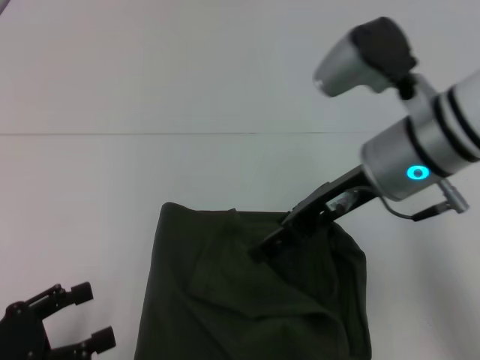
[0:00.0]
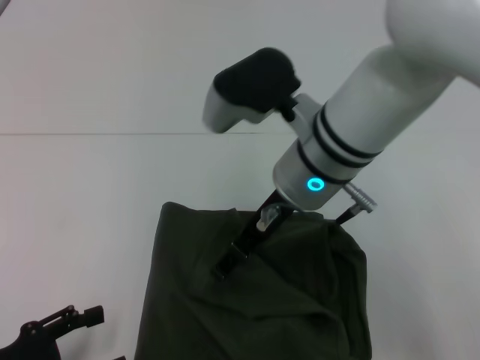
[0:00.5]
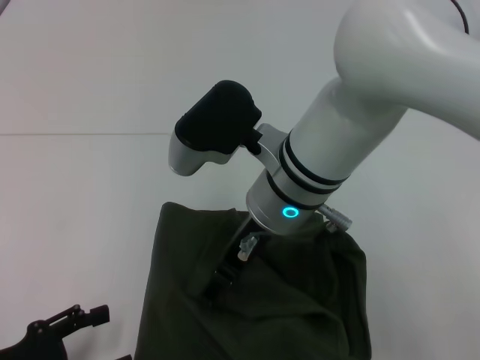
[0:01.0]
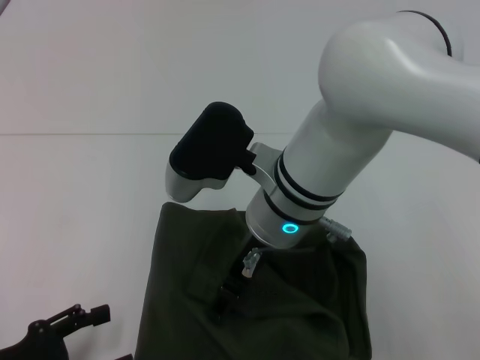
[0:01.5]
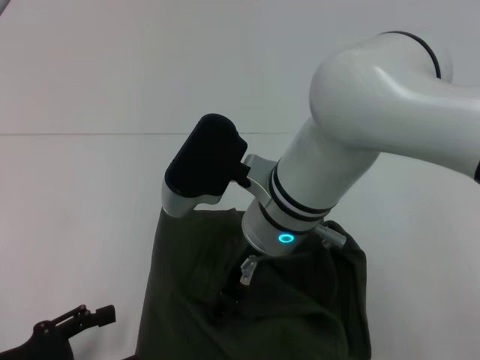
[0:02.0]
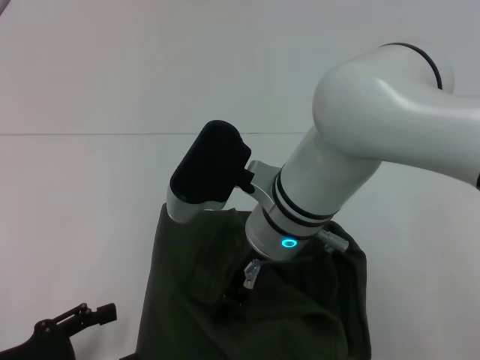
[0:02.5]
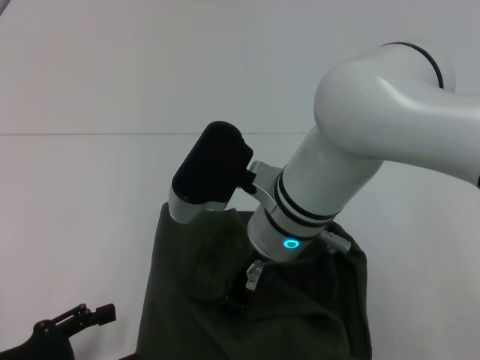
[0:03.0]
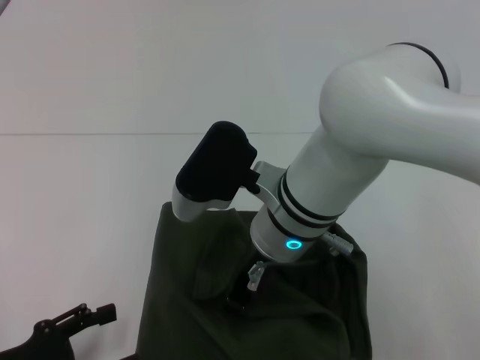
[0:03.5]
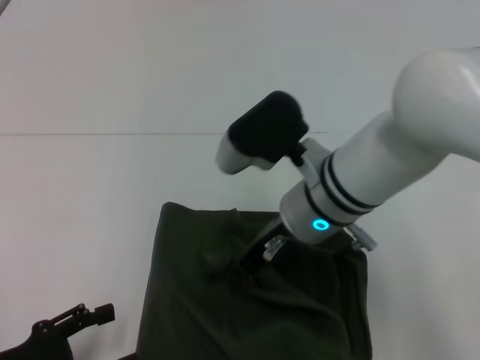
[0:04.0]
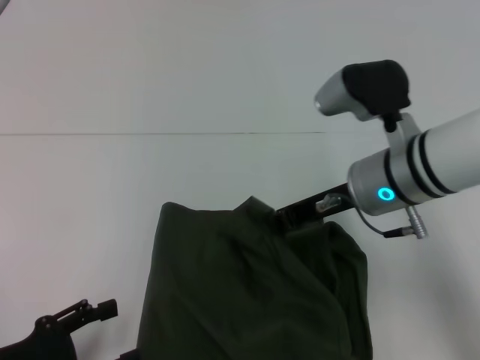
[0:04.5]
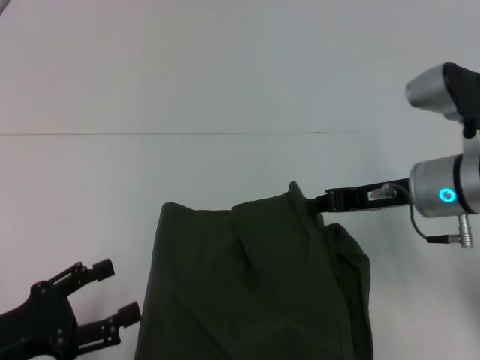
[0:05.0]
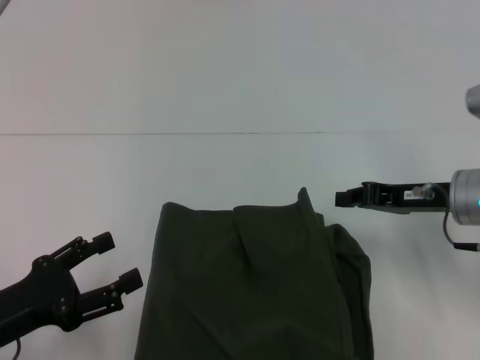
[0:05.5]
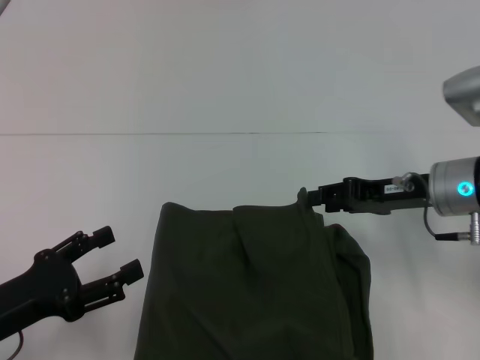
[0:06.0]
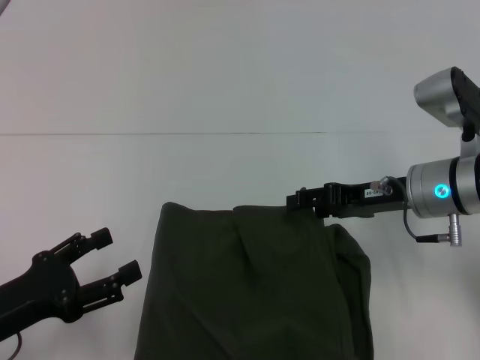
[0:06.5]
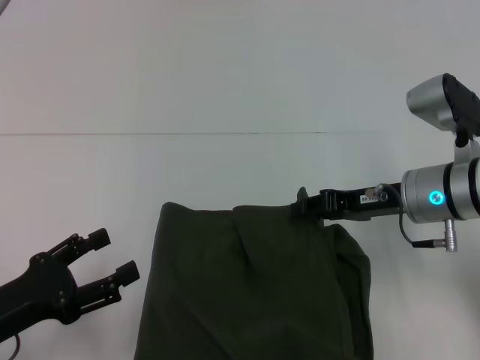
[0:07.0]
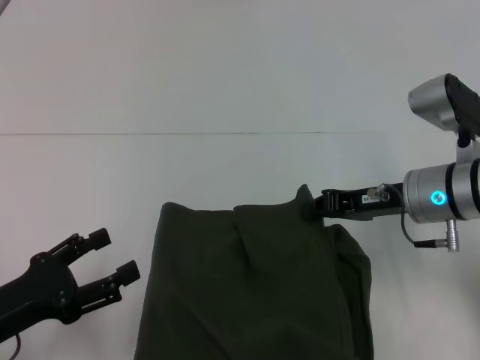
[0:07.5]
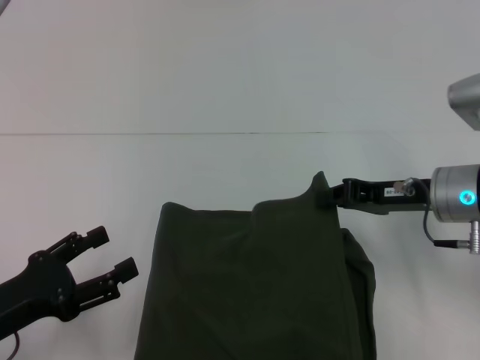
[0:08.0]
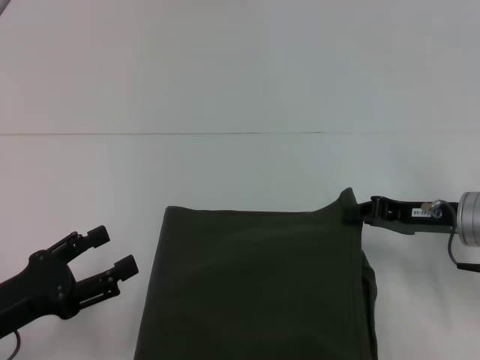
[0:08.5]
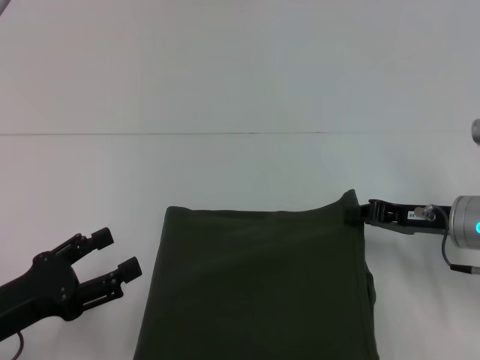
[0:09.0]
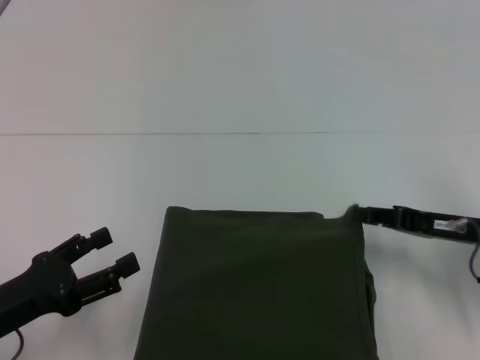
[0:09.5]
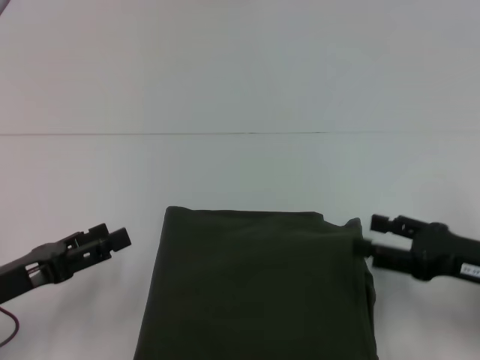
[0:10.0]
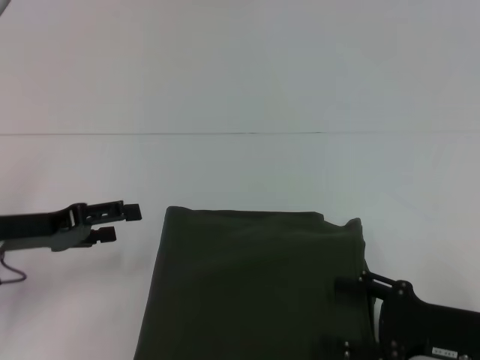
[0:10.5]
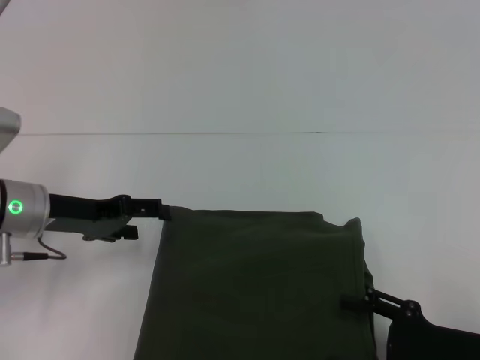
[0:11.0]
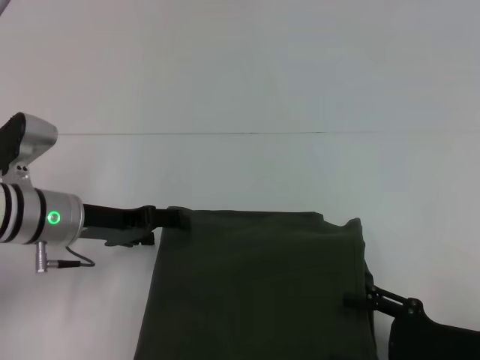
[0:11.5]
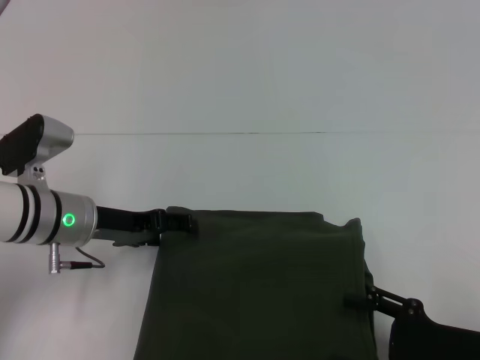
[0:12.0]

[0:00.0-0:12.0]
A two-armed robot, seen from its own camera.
0:00.0 to 0:02.0: The right gripper heads to the left and downward, covering about 15 cm.
0:02.0 to 0:04.0: The right gripper closes its fingers.
0:04.0 to 0:06.0: The right gripper moves to the right, roughly 15 cm.
0:06.0 to 0:08.0: The right gripper opens and closes again.
0:08.0 to 0:10.0: The right gripper is displaced backward and to the right by some 10 cm, and opens its fingers.
0:10.0 to 0:12.0: The left gripper moves forward and to the right, approximately 15 cm. Meanwhile the right gripper travels backward by about 5 cm.

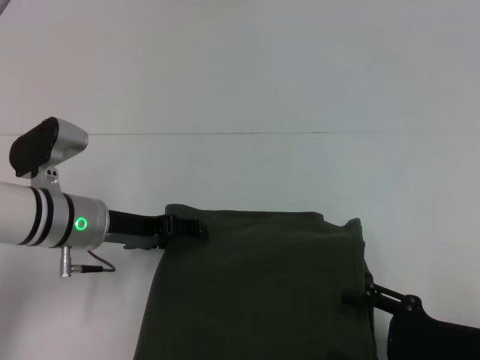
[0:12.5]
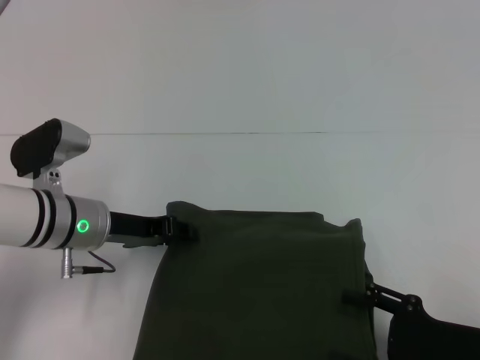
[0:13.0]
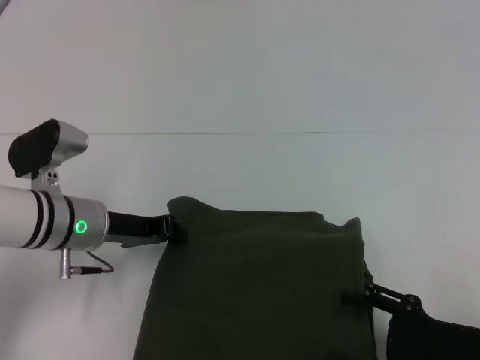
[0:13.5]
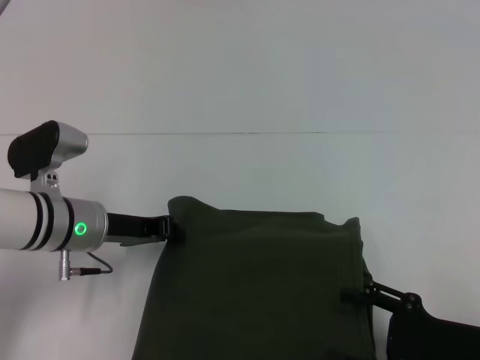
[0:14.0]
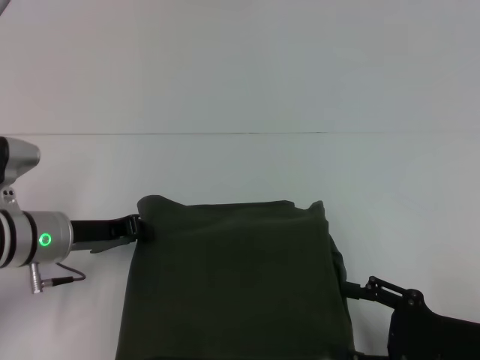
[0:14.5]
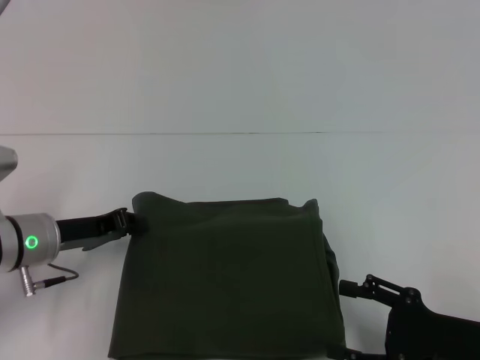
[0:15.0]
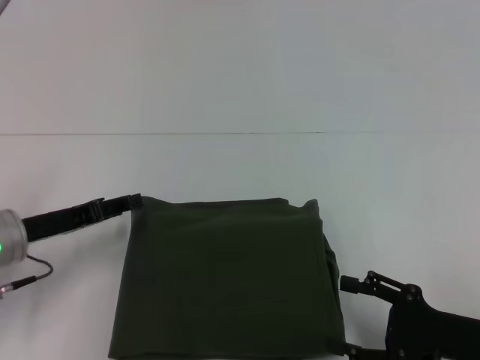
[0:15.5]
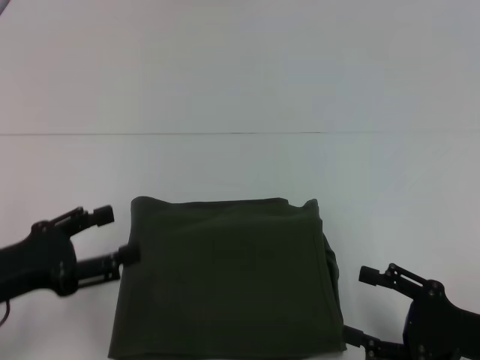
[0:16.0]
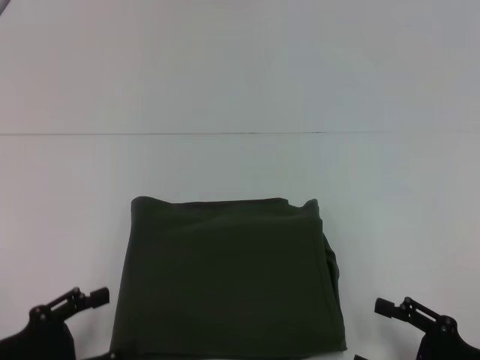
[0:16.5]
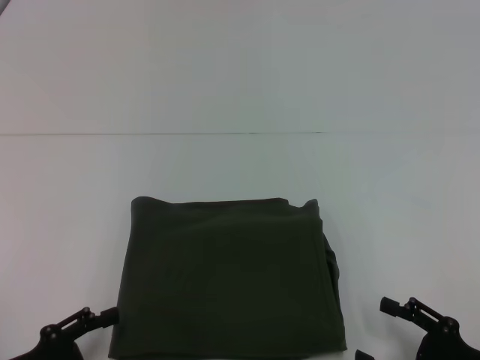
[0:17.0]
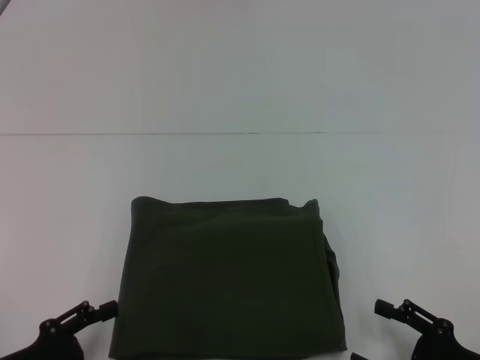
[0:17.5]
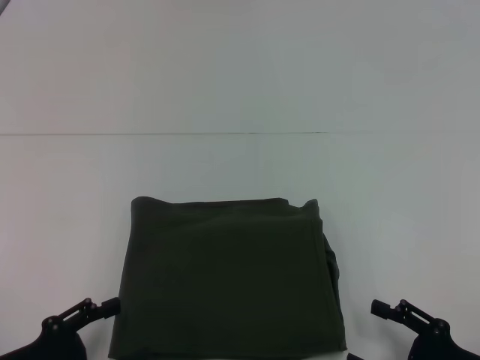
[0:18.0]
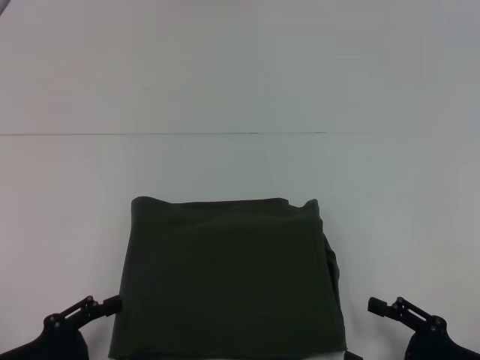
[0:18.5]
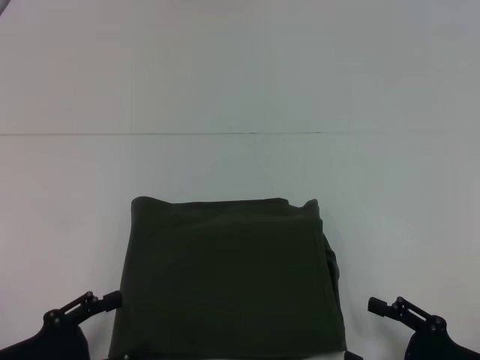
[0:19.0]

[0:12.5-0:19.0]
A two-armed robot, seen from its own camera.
0:12.5 to 0:14.5: The left gripper closes.
0:14.5 to 0:17.0: The right gripper changes place by approximately 5 cm. Meanwhile the left gripper moves backward, approximately 20 cm, and opens up.
0:17.0 to 0:19.0: The two grippers keep their place.

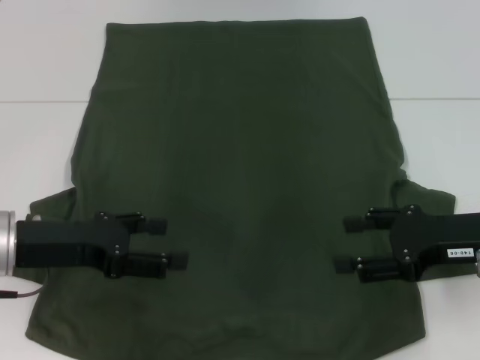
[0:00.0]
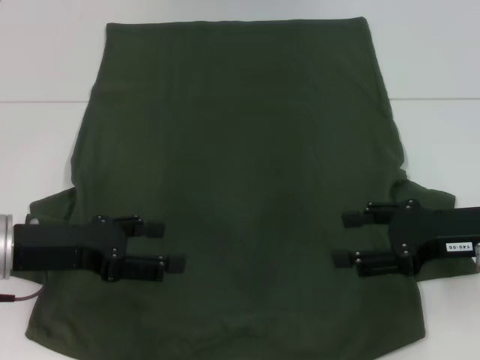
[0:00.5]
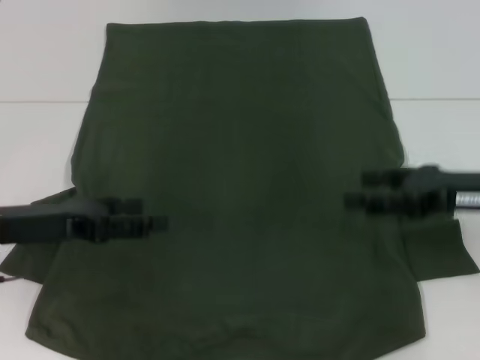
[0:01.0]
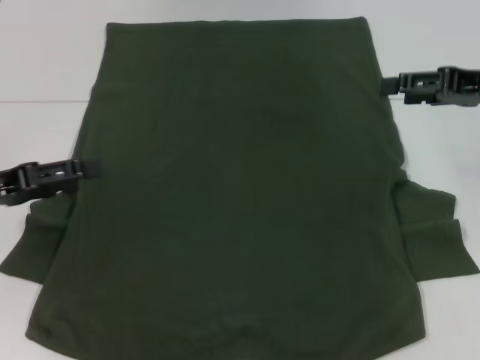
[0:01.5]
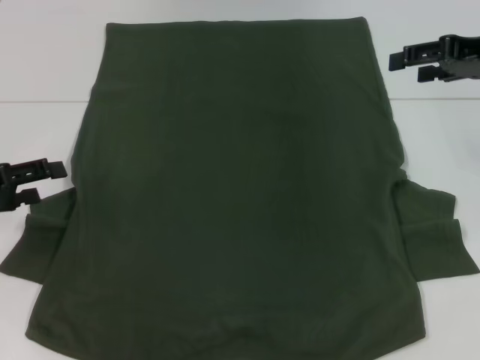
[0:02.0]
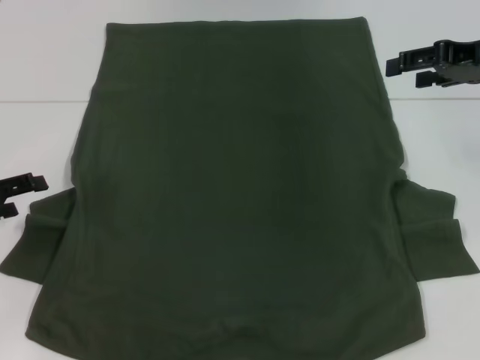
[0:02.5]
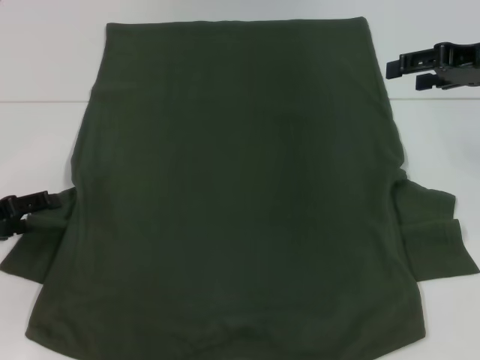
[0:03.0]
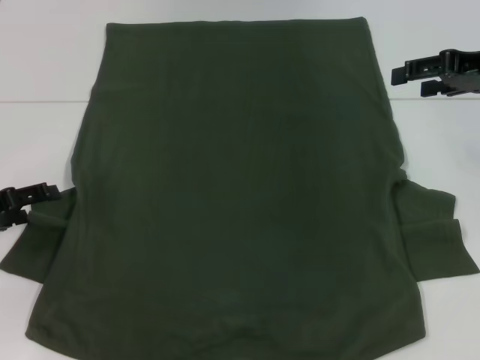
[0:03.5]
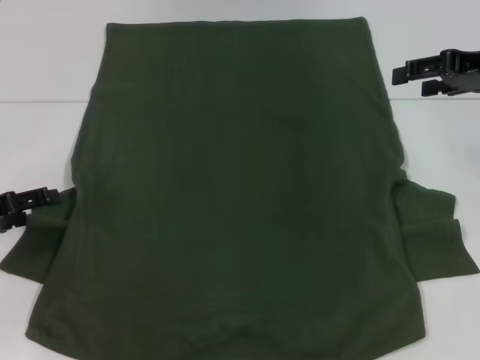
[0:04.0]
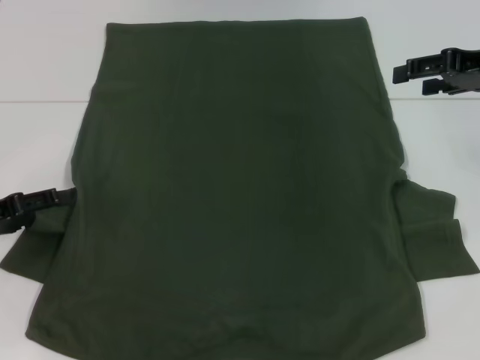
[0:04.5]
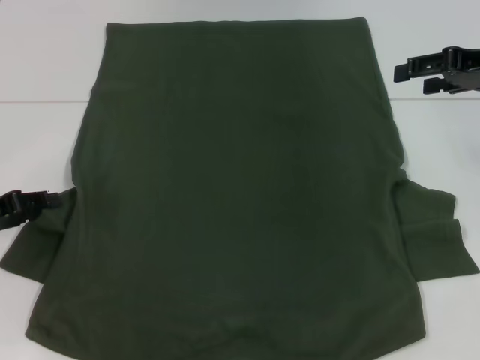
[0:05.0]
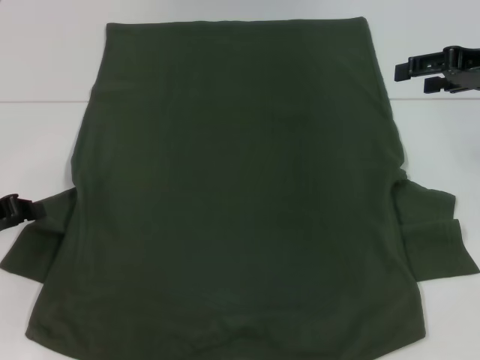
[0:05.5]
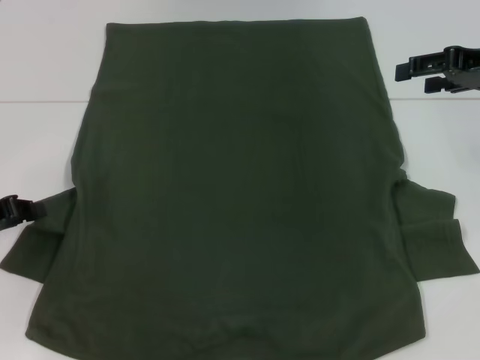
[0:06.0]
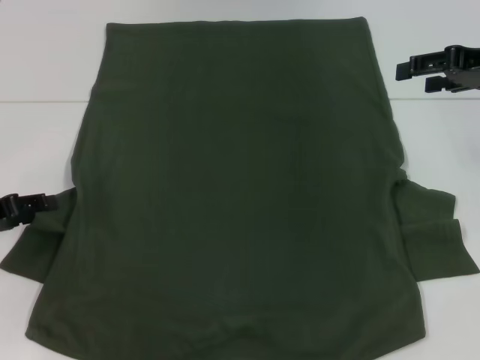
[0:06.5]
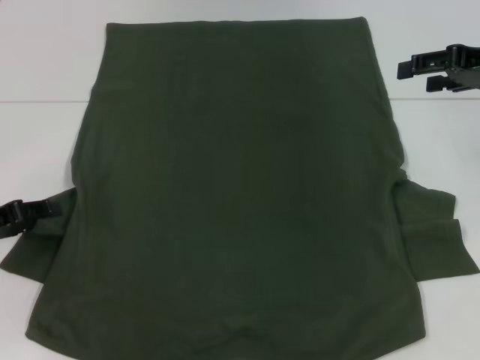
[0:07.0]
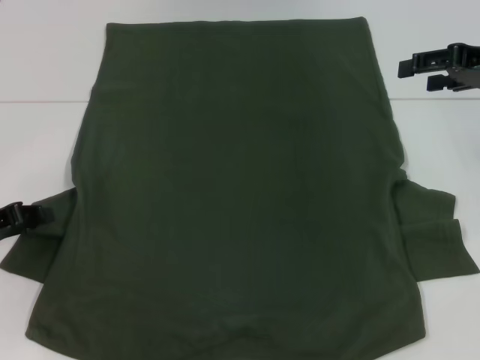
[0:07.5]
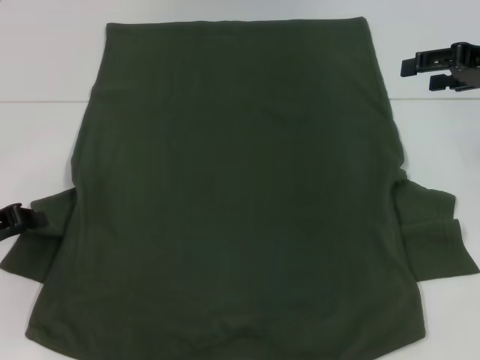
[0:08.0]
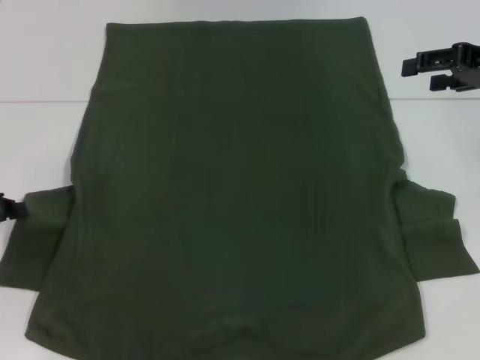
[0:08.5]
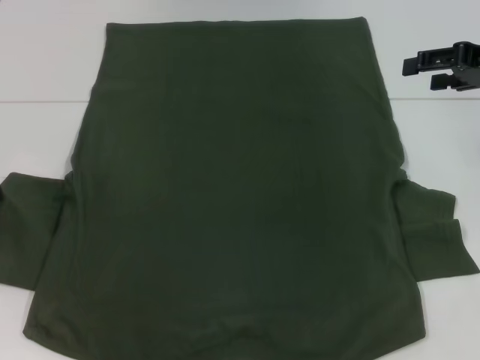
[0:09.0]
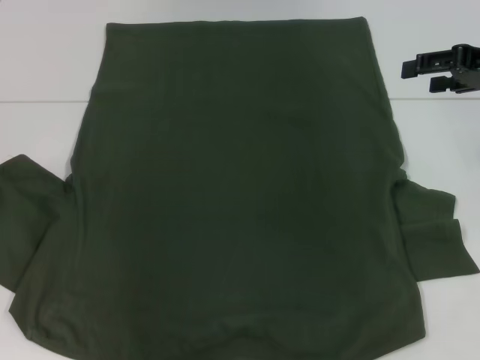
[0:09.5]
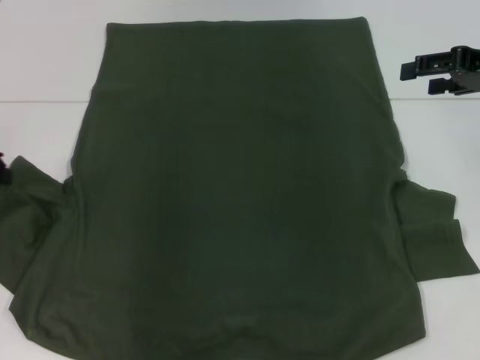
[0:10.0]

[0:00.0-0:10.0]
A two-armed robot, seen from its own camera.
0:00.0 to 0:02.0: The right gripper moves forward and upward, about 15 cm. Meanwhile the left gripper travels to the left by about 10 cm.
0:02.0 to 0:04.0: The grippers stay close to where they were, moving slightly.
0:04.0 to 0:06.0: The left gripper closes its fingers.
0:08.0 to 0:10.0: The left gripper moves upward and forward, some 10 cm.
